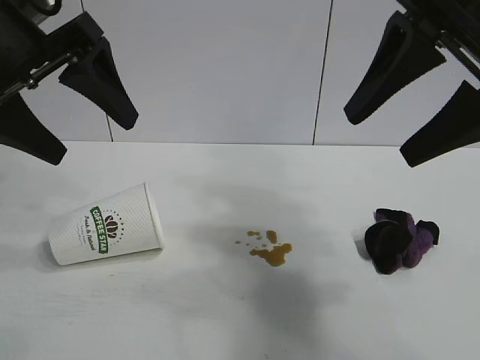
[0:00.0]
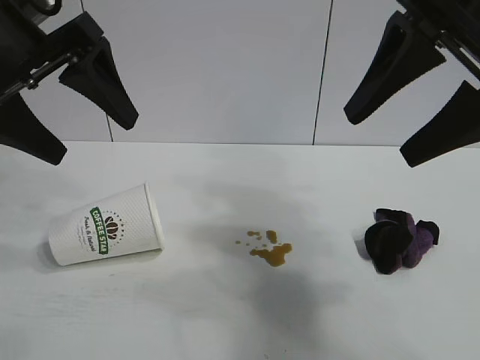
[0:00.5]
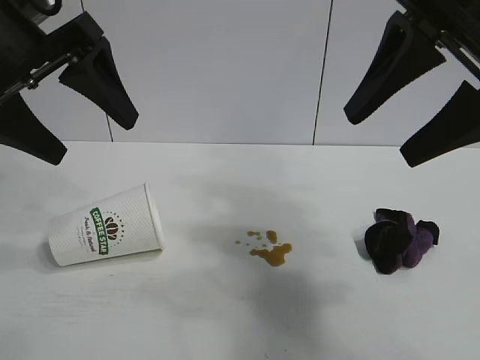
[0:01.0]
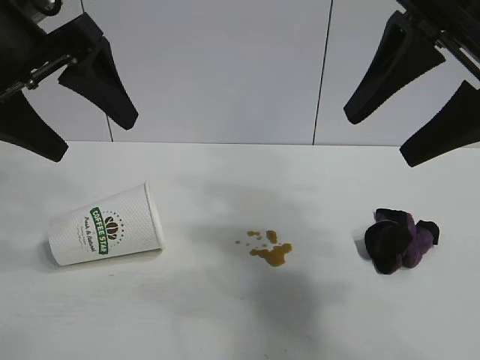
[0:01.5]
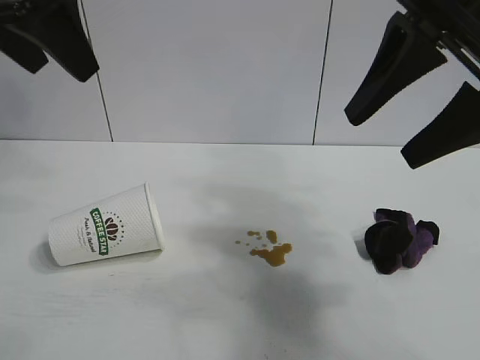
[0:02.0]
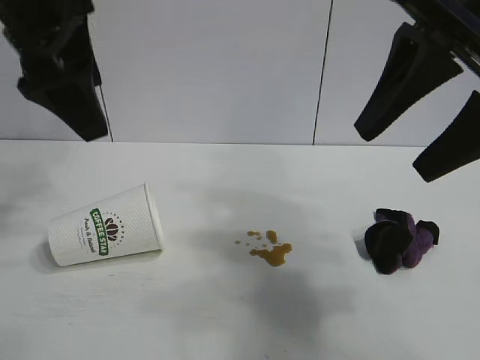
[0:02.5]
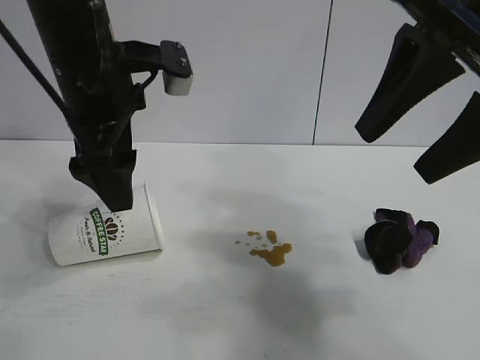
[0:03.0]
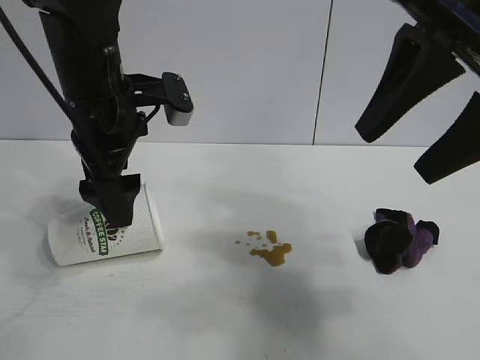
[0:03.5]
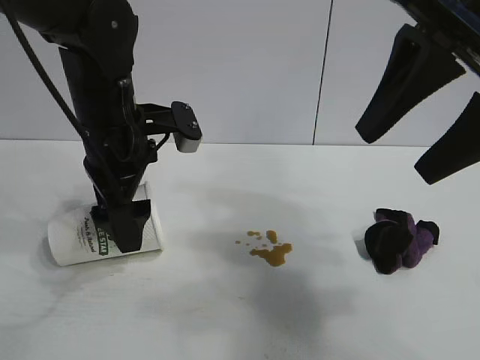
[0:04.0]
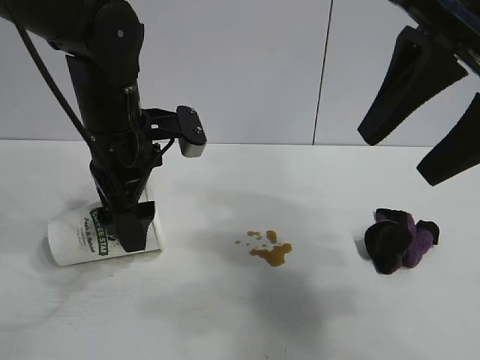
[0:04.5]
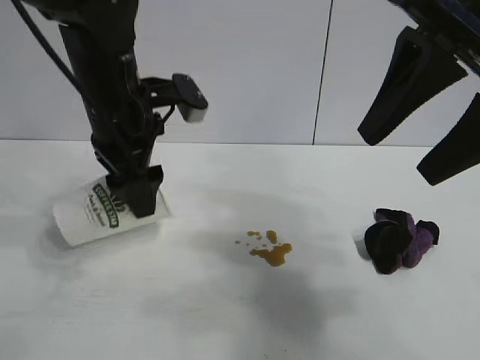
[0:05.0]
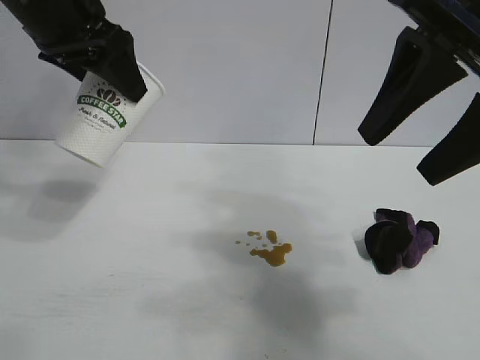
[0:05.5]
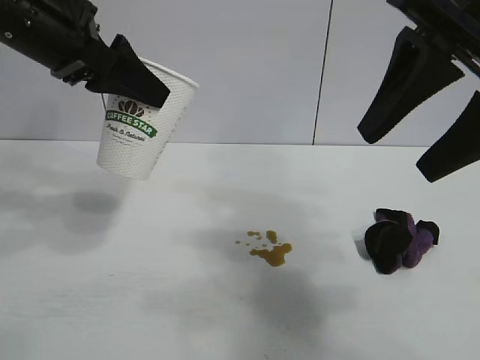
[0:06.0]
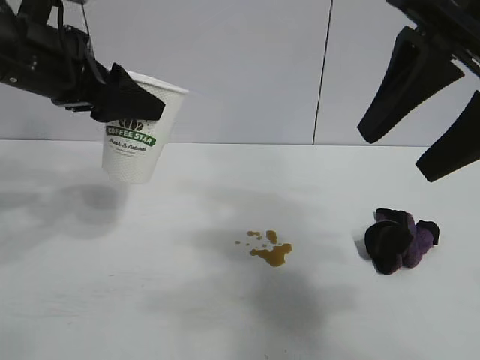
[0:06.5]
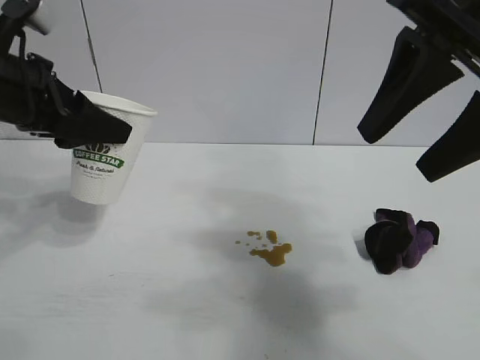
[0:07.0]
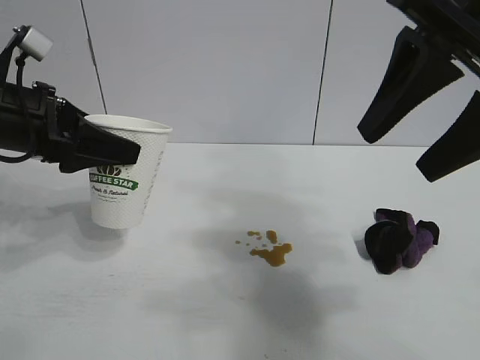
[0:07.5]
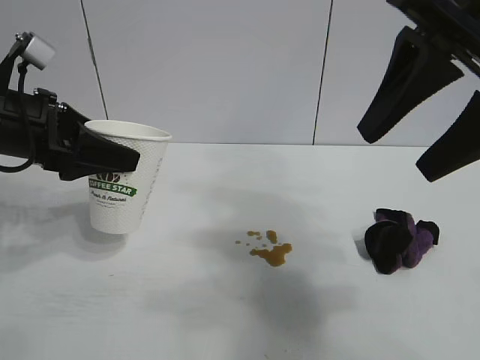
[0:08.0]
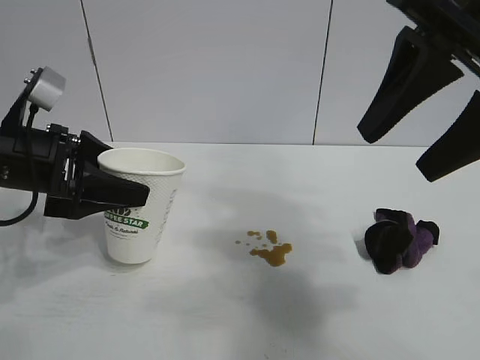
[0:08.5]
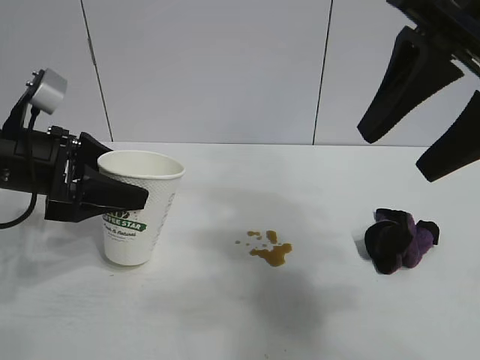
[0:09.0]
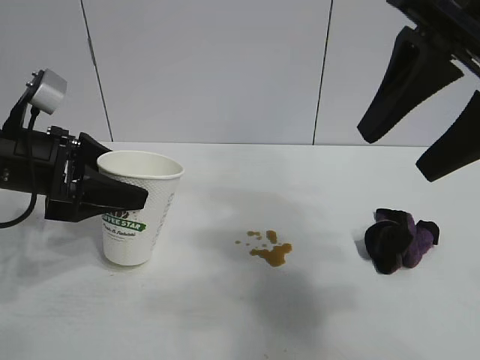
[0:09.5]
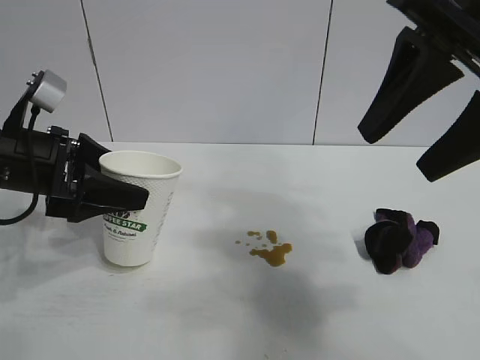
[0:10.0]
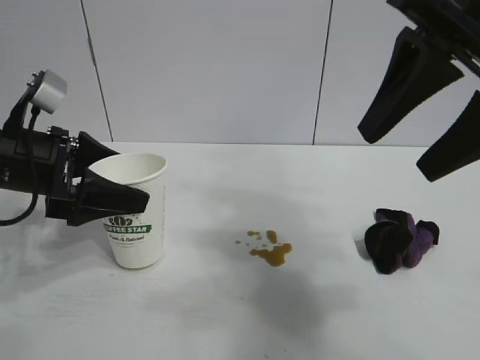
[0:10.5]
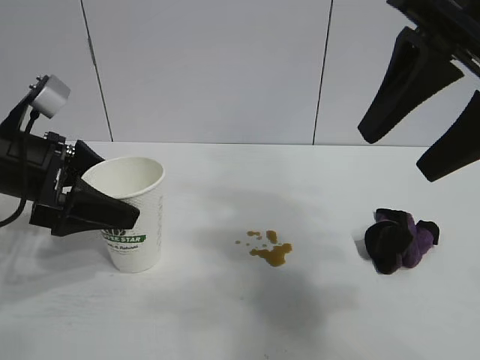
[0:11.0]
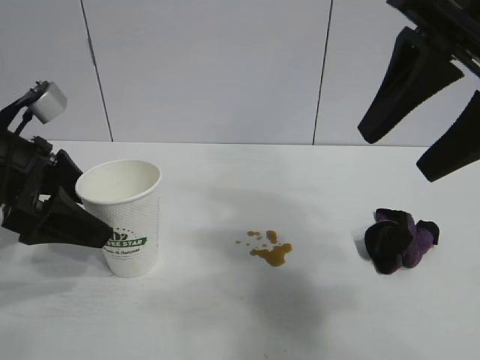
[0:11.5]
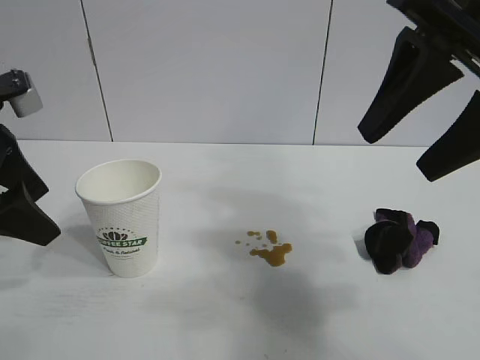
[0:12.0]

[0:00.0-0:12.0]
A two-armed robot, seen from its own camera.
Task of the whole recording: the left gripper pick up the fallen cup and place it upright, the right gripper grasp the black rag and wipe the stain on the table, the right gripper put the black rag back in its original position.
Step, 0:01.5 to 0:04.5: Grasp the paper cup with left gripper.
Step, 0:05.0 to 0:10.5: Stand the paper cup upright with left gripper.

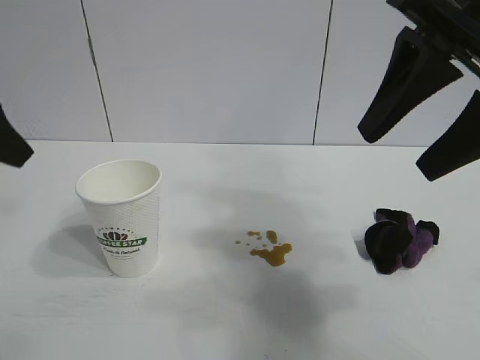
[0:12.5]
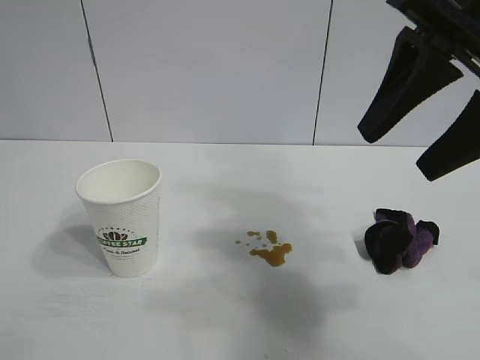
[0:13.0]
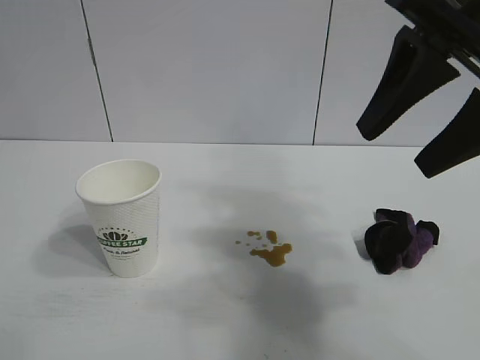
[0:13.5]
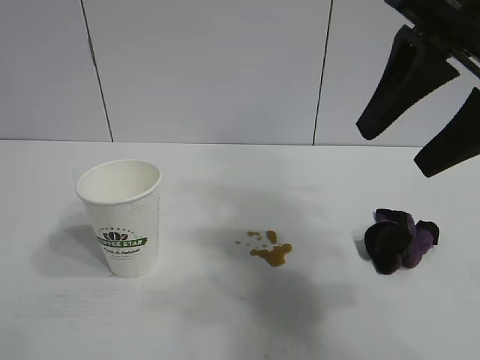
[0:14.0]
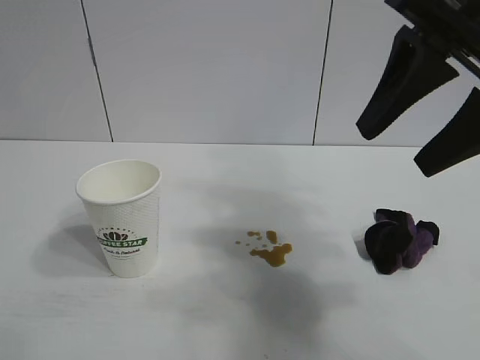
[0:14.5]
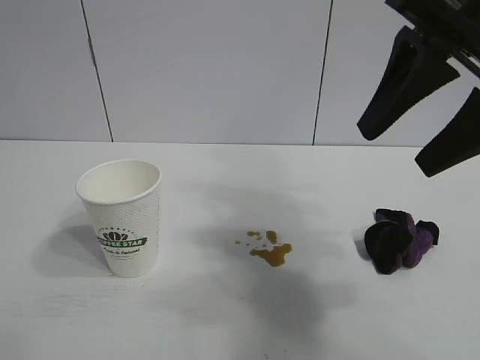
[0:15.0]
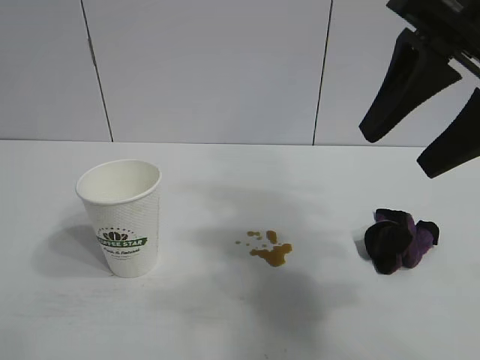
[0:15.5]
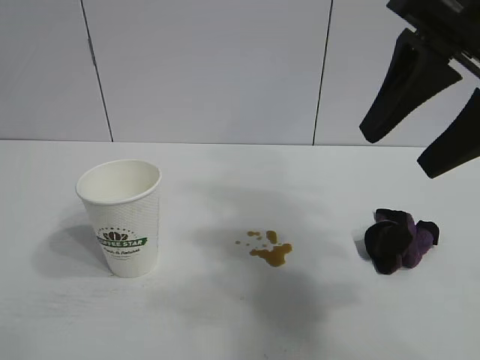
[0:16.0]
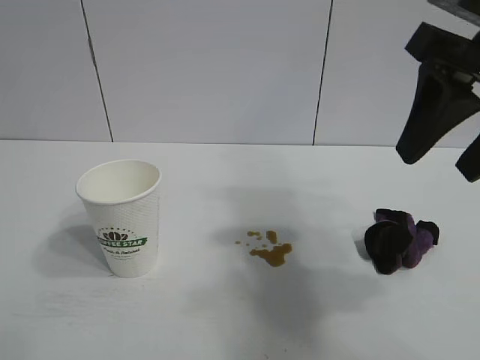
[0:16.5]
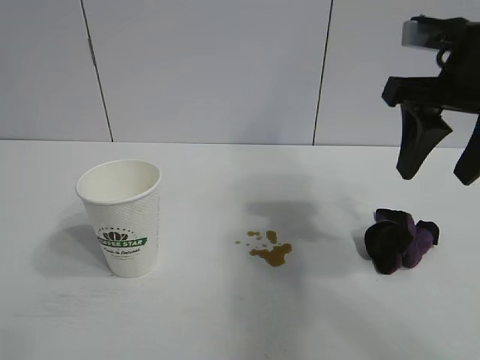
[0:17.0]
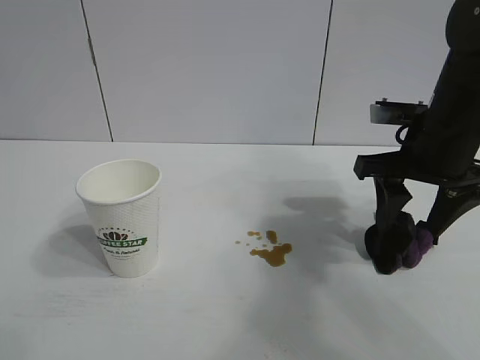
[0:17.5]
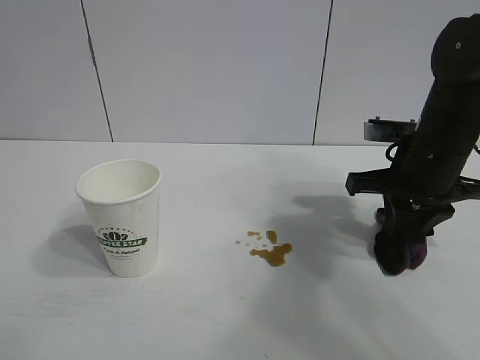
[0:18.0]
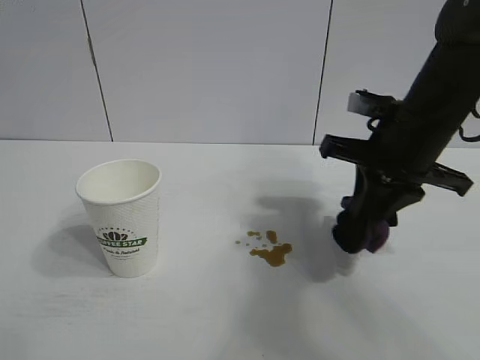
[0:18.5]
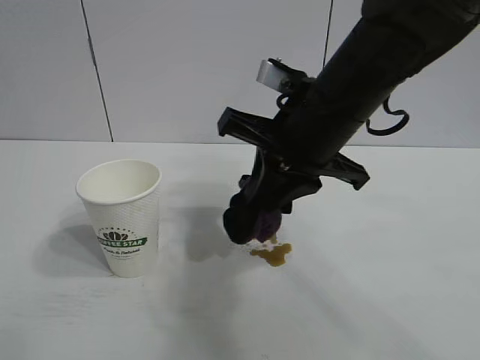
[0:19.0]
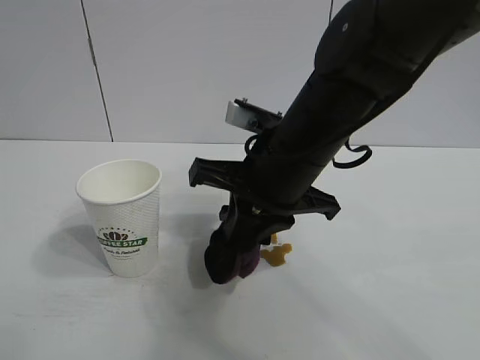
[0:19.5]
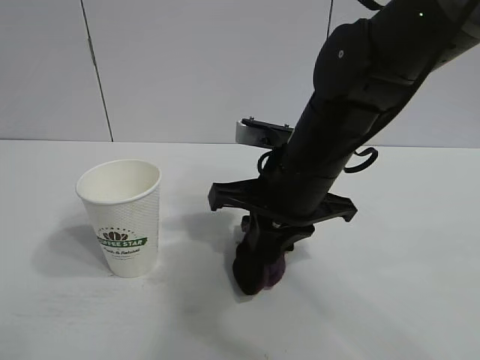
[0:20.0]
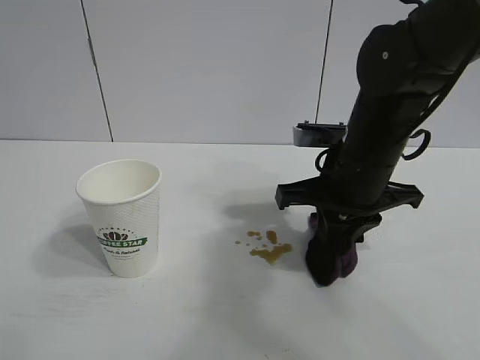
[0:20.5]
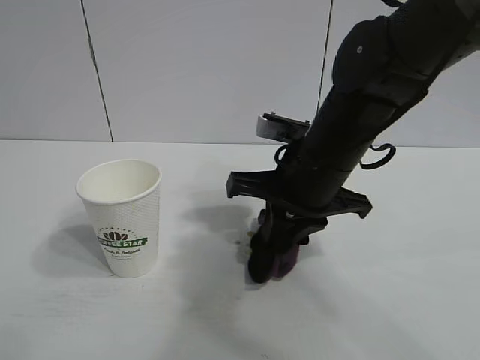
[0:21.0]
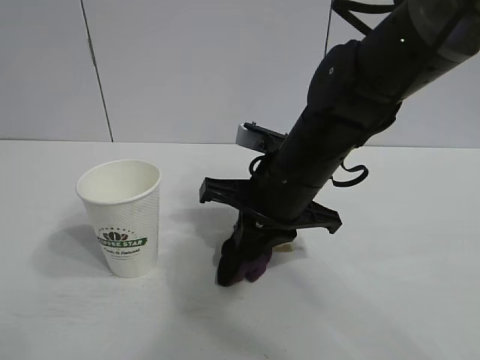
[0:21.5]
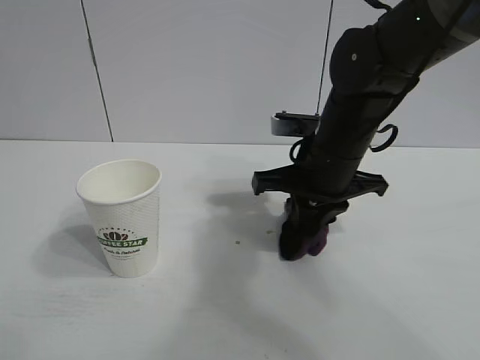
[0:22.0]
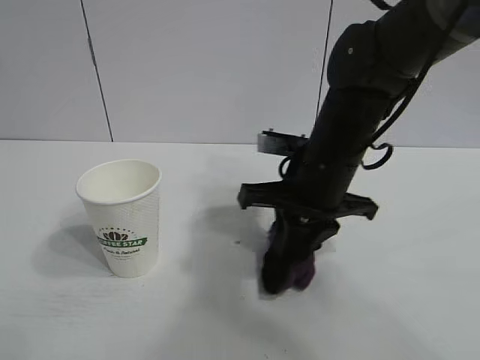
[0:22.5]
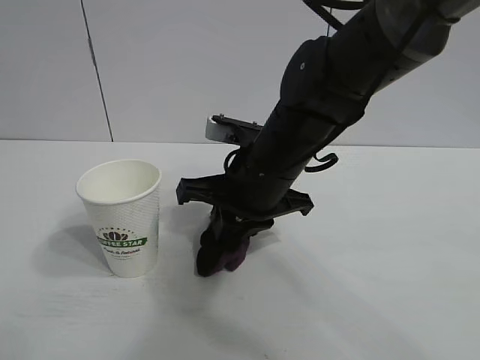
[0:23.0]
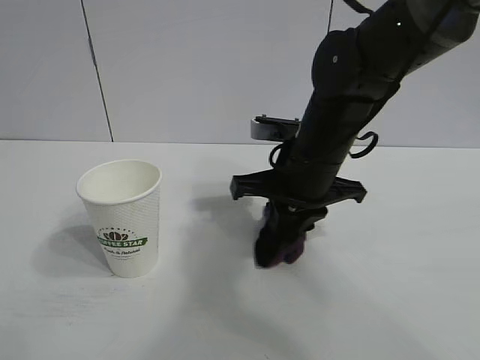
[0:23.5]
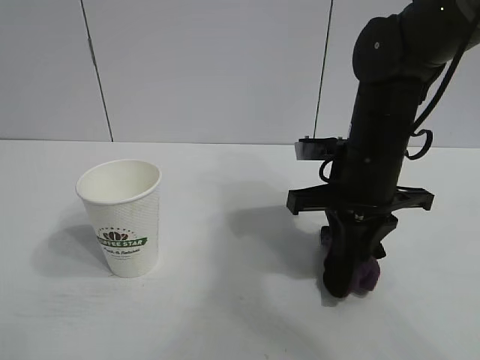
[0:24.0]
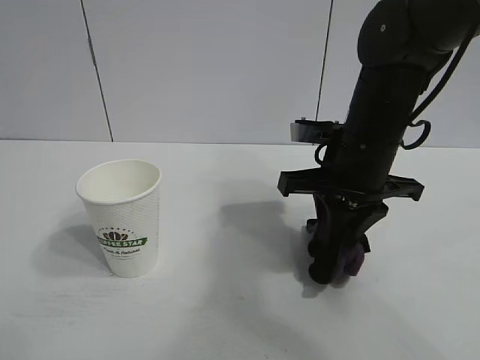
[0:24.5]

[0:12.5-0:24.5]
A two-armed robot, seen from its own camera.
Task of the whole recording: the left gripper pick up the fallen cup and place it upright, the right gripper grasp the black rag and wipe the stain on the table, the right gripper put the black rag back in its original position.
Step, 0:12.5 to 0:18.0: Grasp the rag with right gripper.
Step, 0:18.5 to 0:23.5: Wipe the stains off the table with the rag with right gripper.

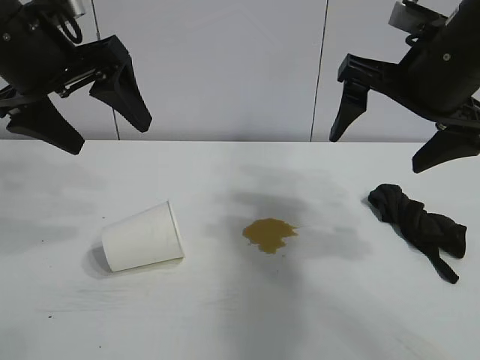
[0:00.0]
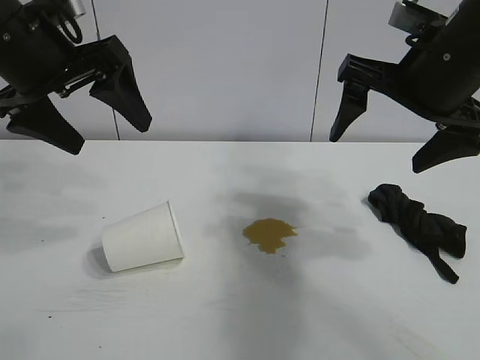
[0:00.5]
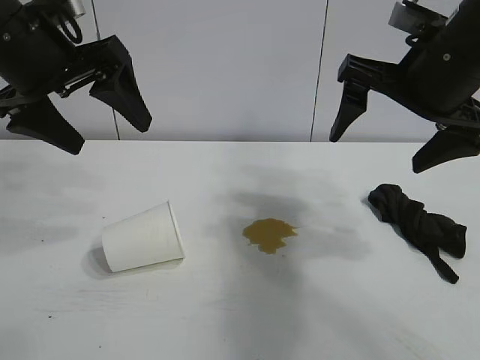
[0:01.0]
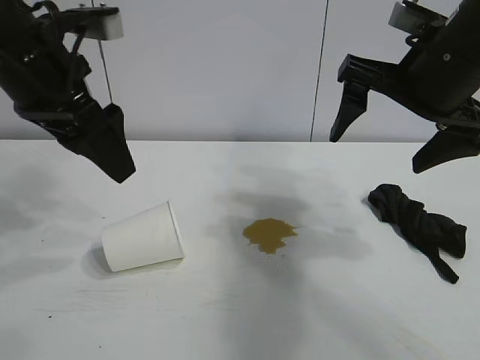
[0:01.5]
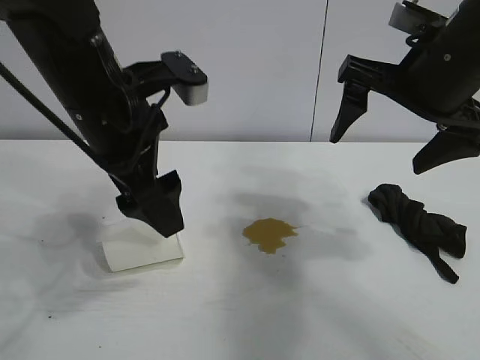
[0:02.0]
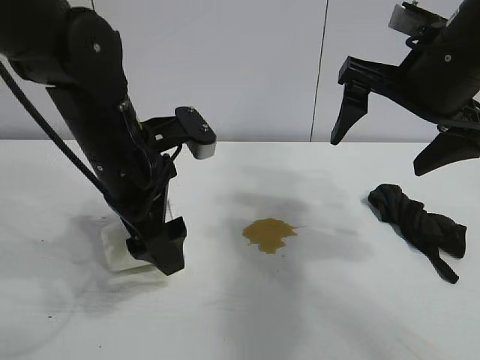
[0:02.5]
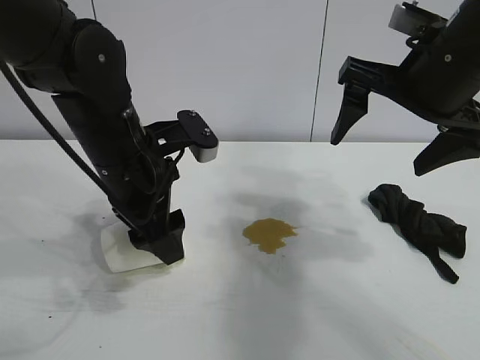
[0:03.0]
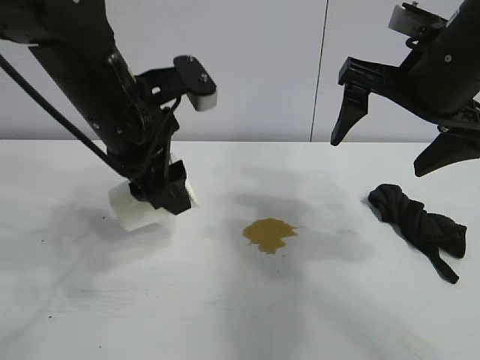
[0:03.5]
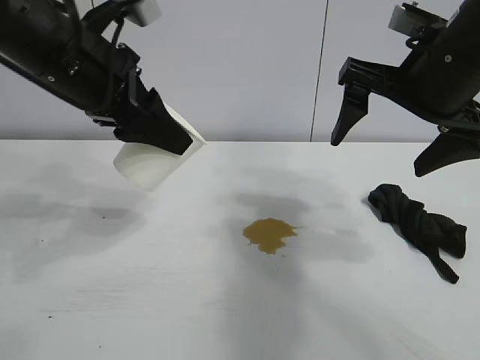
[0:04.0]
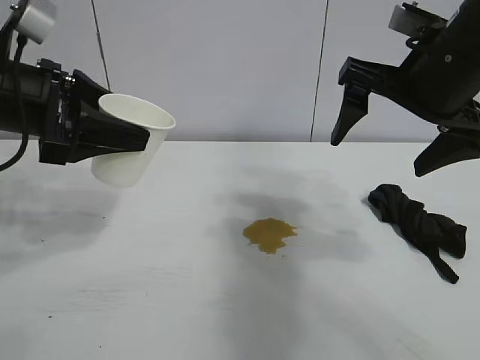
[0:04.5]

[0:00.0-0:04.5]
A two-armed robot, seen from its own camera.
Task of the whole recording: the left gripper pick up the fallen cup and place it upright, the right gripper grasp the black rag and wipe the stain on the table, the right gripper put the black rag back in its original position.
Step, 0:01.5 to 0:03.0: Grasp the paper cup with left gripper.
